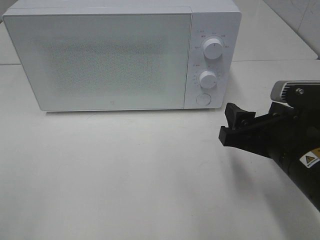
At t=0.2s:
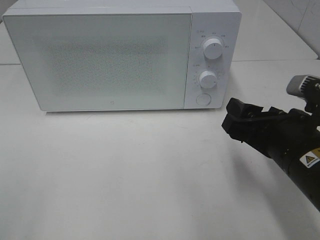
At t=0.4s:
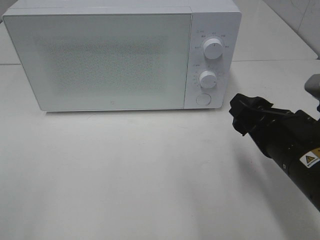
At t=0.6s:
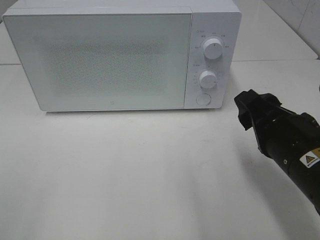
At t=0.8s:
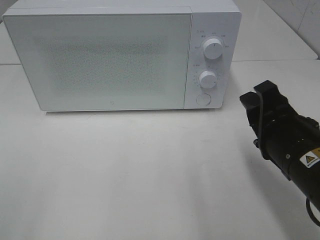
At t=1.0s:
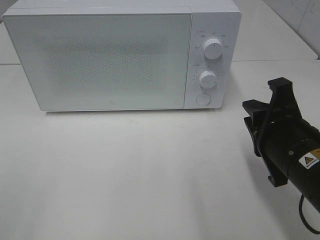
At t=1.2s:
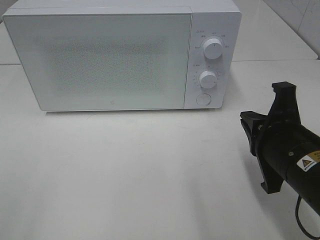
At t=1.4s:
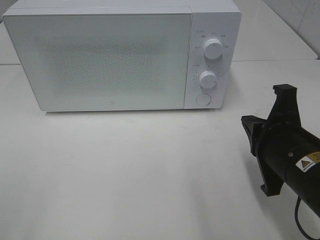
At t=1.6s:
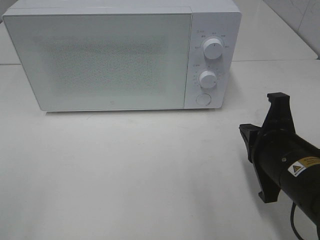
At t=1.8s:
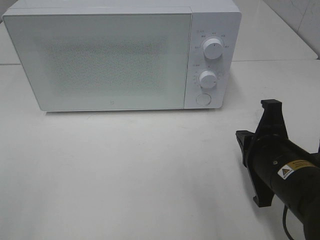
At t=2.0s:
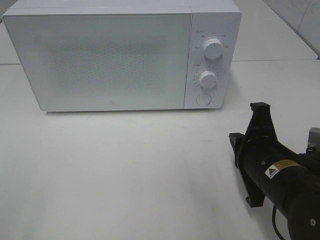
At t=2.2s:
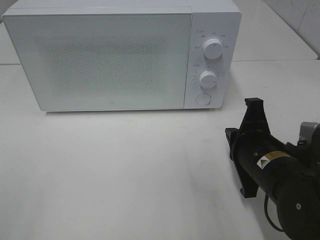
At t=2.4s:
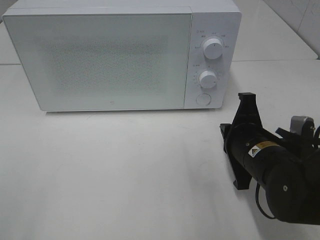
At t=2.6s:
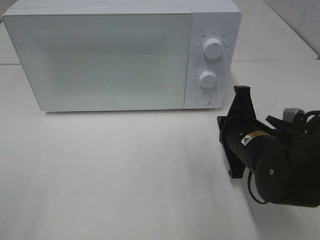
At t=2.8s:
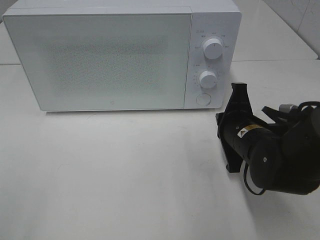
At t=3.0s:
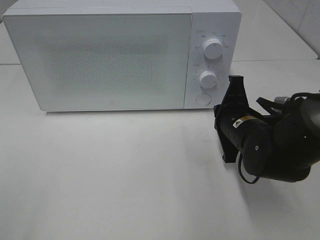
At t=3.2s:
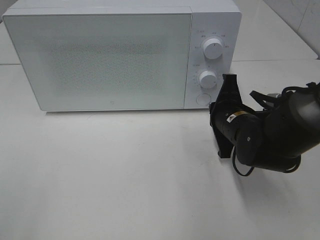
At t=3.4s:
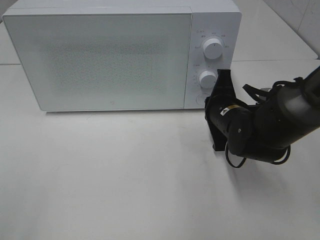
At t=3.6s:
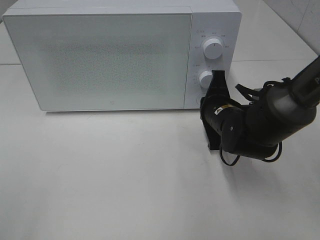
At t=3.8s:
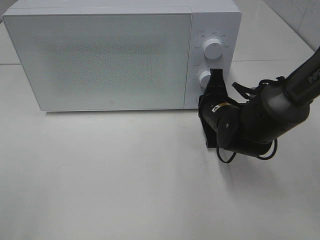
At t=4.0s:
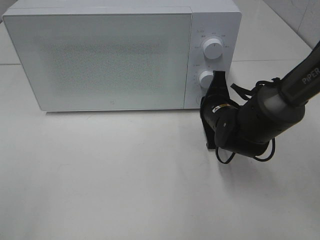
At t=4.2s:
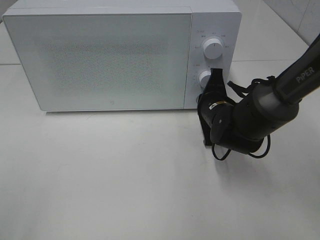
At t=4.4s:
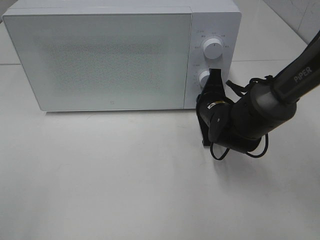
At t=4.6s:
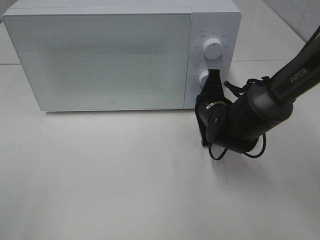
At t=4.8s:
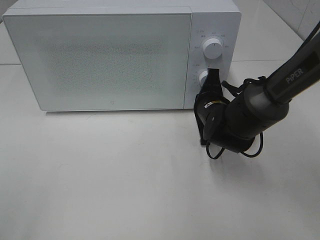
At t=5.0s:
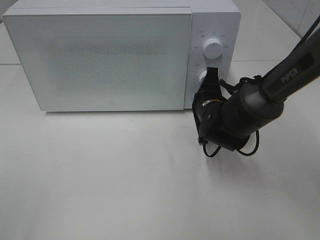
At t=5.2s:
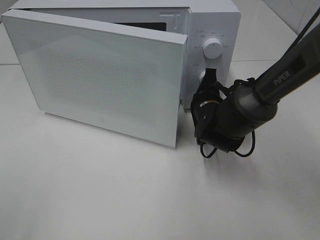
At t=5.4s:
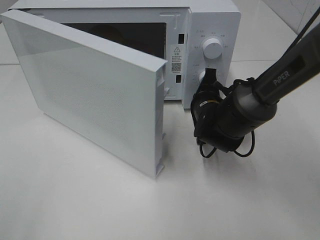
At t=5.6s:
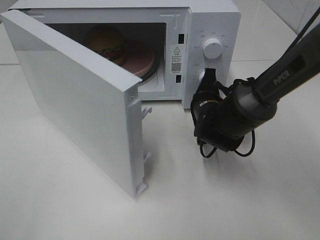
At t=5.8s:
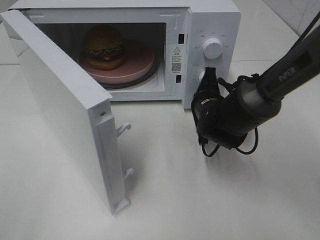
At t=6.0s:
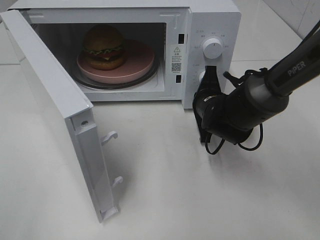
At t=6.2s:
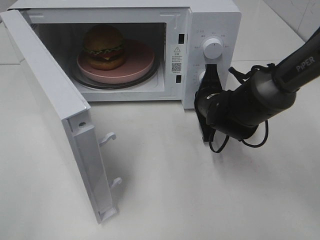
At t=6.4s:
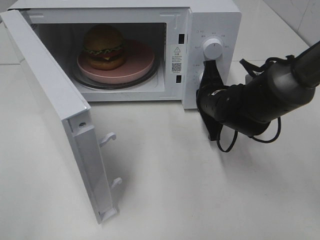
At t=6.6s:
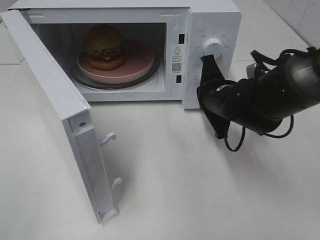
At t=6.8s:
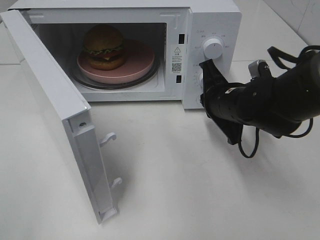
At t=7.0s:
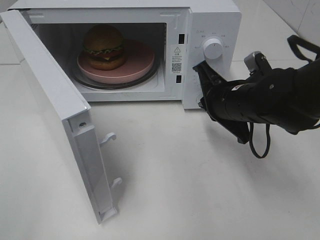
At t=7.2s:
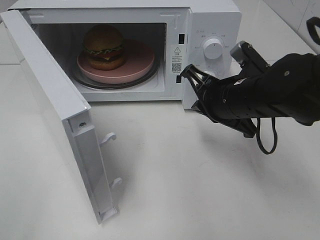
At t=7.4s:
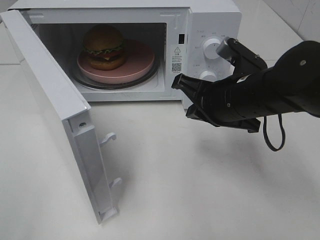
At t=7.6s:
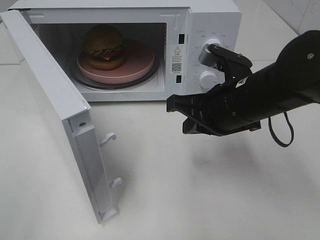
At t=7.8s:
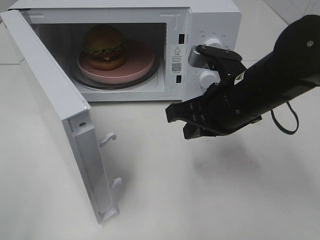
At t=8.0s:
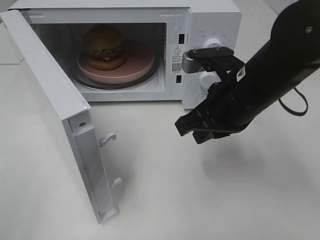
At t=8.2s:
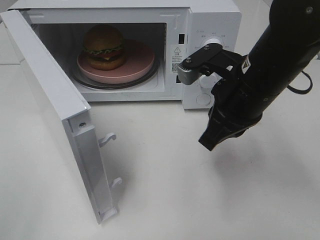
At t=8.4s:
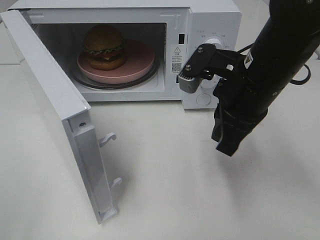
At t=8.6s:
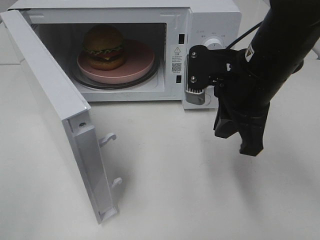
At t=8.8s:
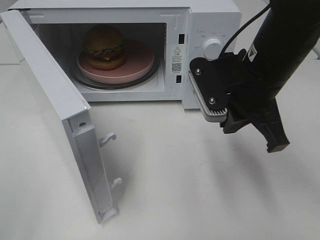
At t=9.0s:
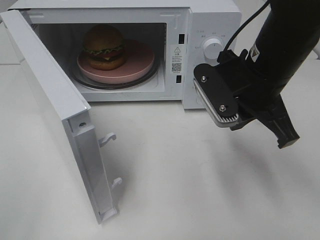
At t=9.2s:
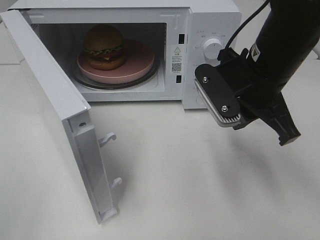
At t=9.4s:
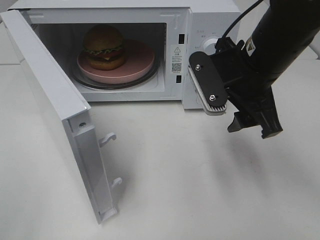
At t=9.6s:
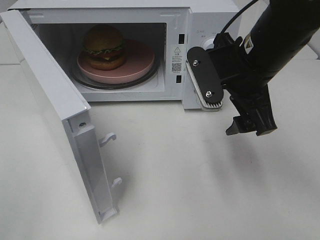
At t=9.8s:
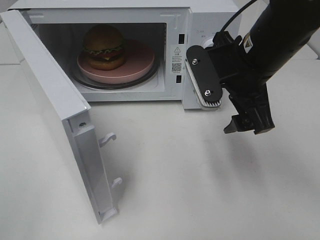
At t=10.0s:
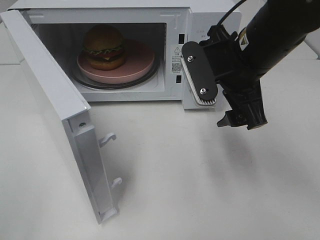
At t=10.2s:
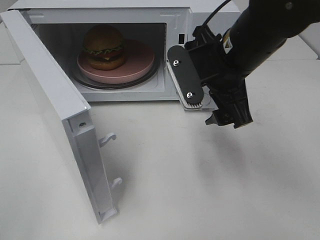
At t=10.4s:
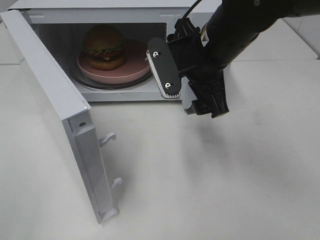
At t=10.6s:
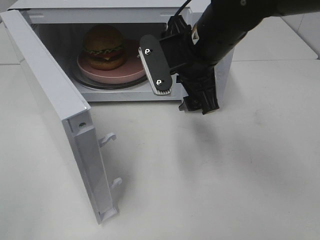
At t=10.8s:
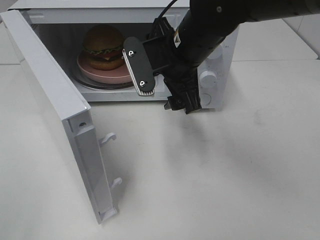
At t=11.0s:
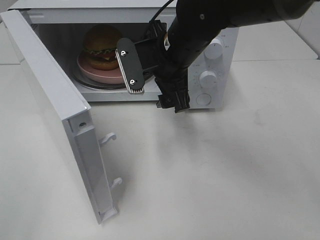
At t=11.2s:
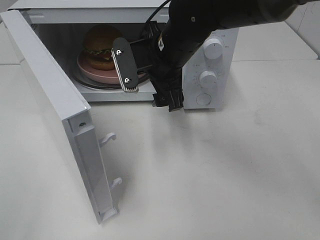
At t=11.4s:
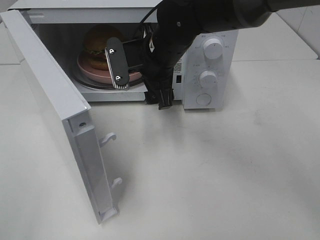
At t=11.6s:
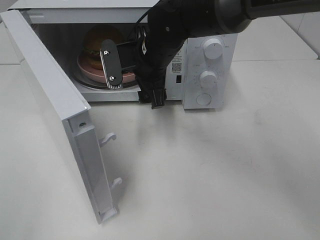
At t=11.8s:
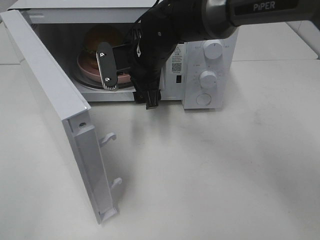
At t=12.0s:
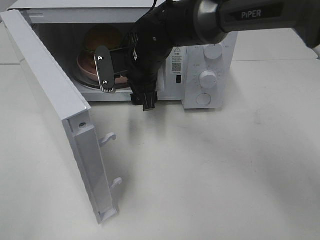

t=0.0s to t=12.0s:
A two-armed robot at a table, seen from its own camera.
Task of the whole recording: Heat the burger.
Step, t=0.0s to t=6.4s: Right hand: press the switch.
t=0.0s to t=1.6s: The right gripper closes.
t=1.6s to t=3.0s: The right gripper heads forward, covering some 10 cm.
t=3.0s to t=4.4s: The right gripper travels forward by about 5 cm.
t=6.0s to t=7.6s: The right gripper travels backward and upward by some 15 cm.
t=7.6s to t=9.0s: The right gripper shifts by about 5 cm.
t=9.0s to t=10.4s: The right gripper travels to the left by about 5 cm, and opens up.
t=10.4s to t=12.0s: The right gripper goes approximately 15 cm forward, to the left and downward.

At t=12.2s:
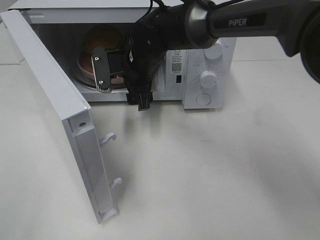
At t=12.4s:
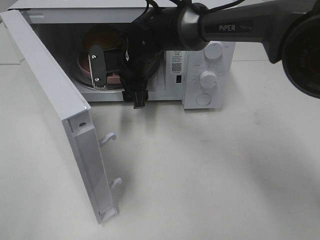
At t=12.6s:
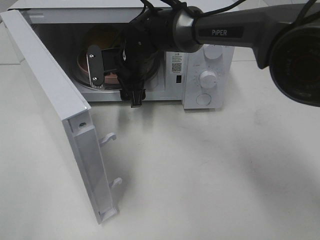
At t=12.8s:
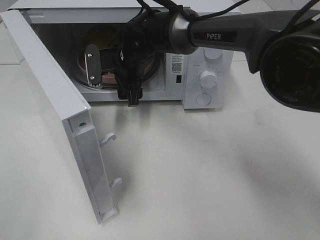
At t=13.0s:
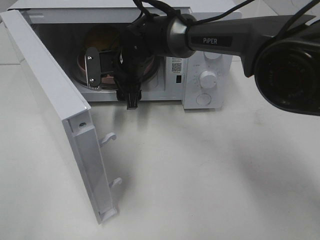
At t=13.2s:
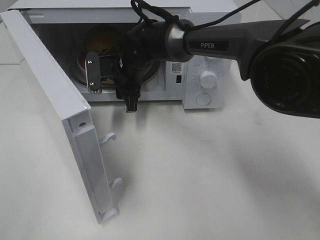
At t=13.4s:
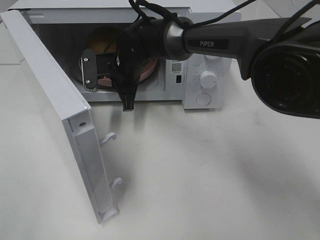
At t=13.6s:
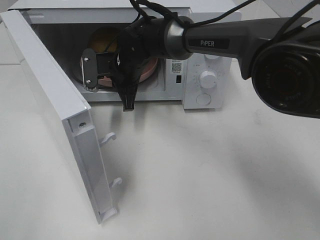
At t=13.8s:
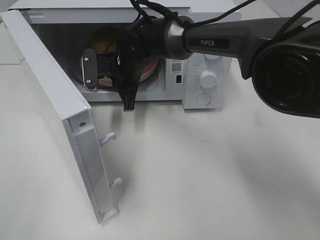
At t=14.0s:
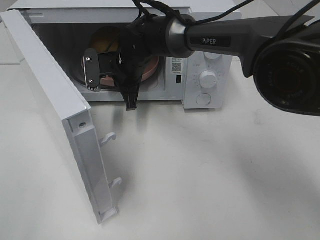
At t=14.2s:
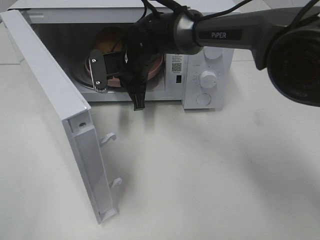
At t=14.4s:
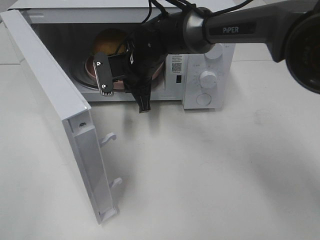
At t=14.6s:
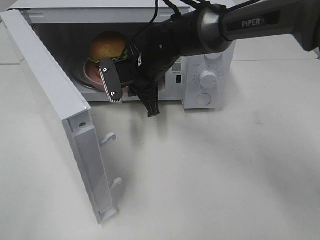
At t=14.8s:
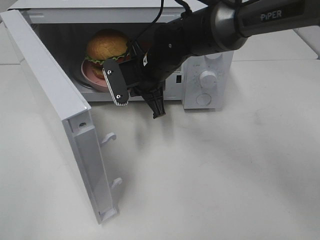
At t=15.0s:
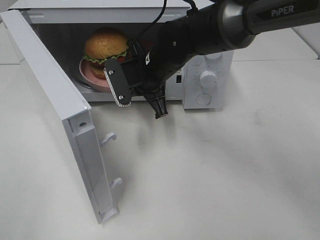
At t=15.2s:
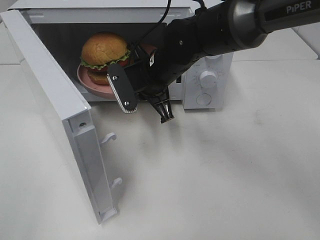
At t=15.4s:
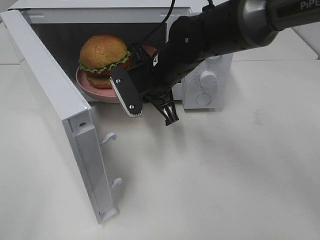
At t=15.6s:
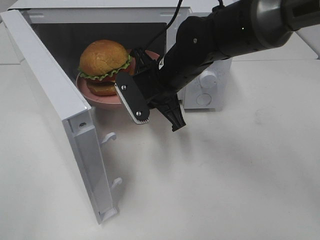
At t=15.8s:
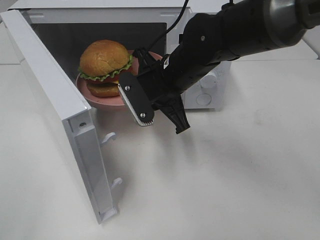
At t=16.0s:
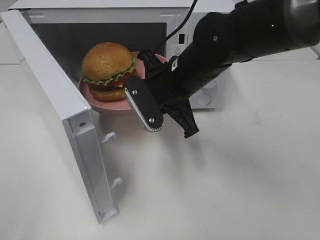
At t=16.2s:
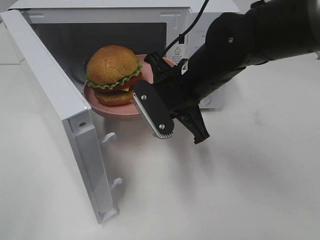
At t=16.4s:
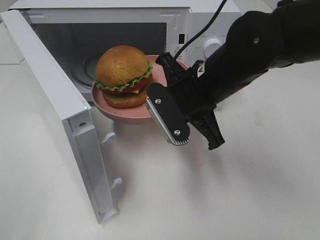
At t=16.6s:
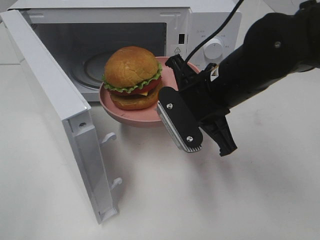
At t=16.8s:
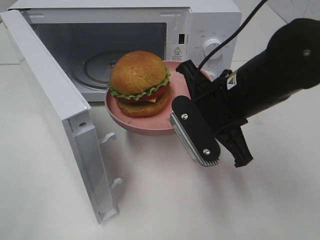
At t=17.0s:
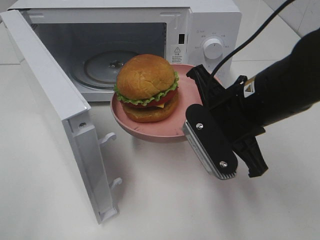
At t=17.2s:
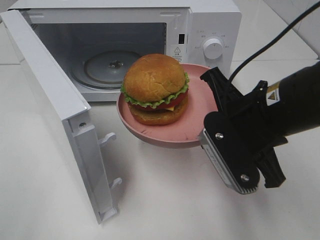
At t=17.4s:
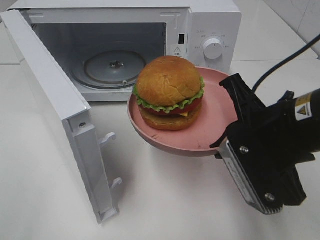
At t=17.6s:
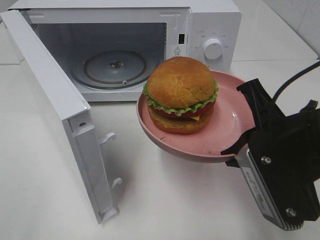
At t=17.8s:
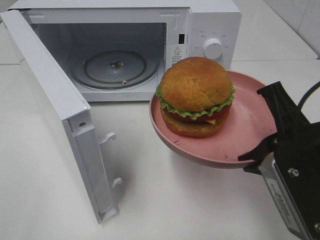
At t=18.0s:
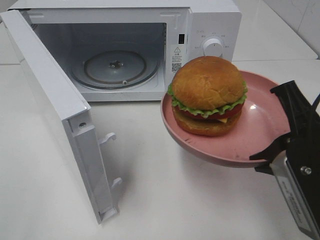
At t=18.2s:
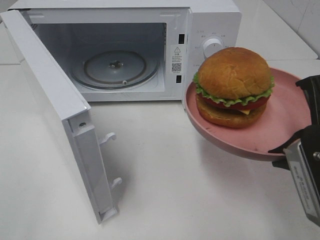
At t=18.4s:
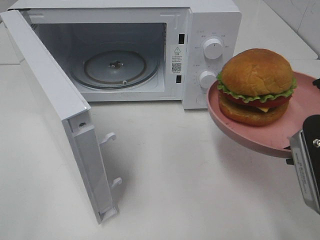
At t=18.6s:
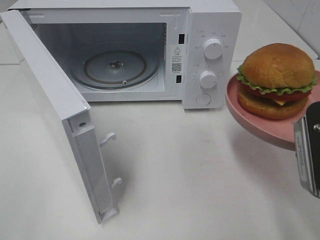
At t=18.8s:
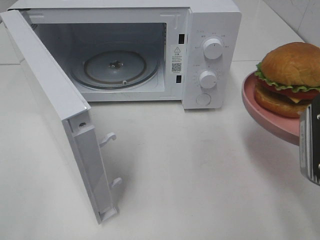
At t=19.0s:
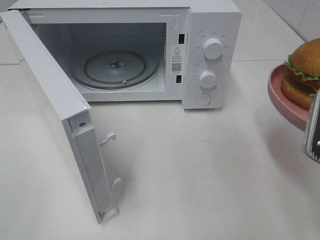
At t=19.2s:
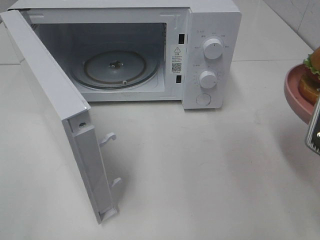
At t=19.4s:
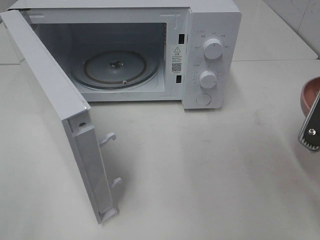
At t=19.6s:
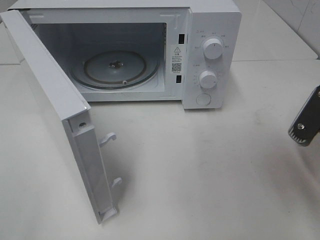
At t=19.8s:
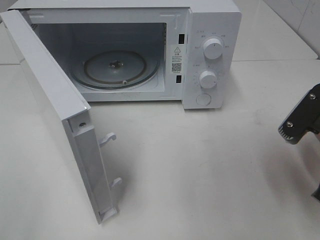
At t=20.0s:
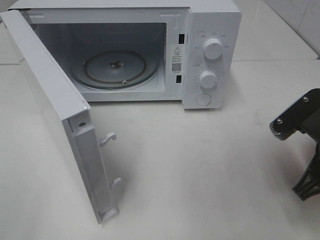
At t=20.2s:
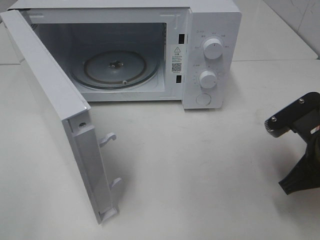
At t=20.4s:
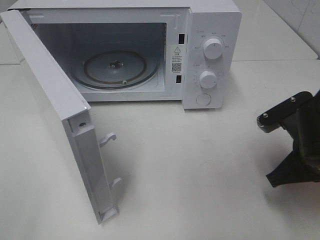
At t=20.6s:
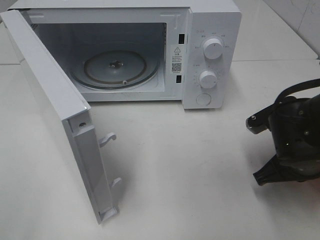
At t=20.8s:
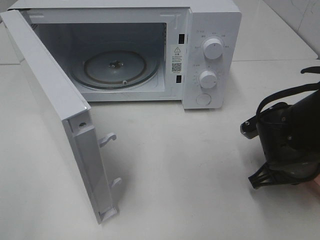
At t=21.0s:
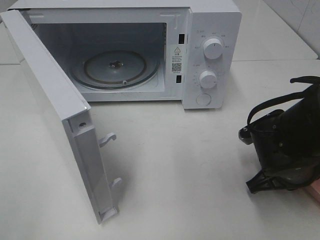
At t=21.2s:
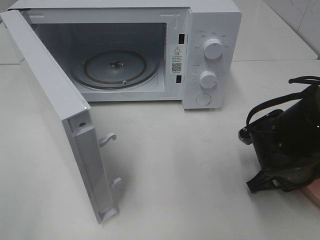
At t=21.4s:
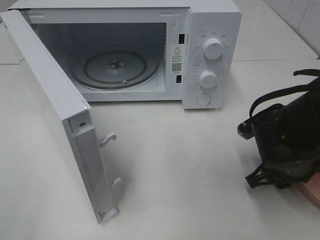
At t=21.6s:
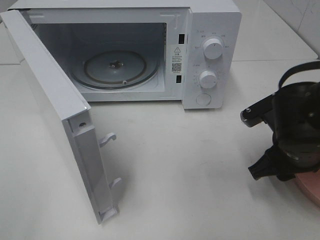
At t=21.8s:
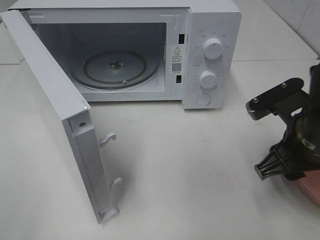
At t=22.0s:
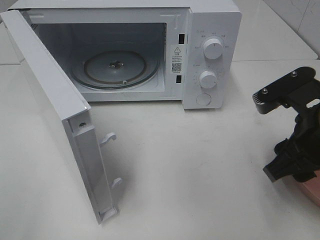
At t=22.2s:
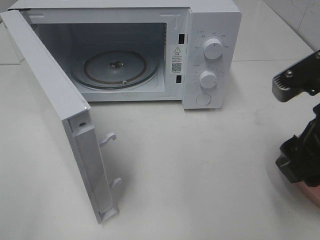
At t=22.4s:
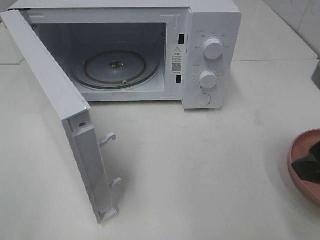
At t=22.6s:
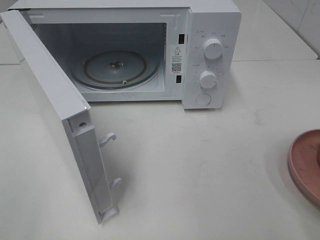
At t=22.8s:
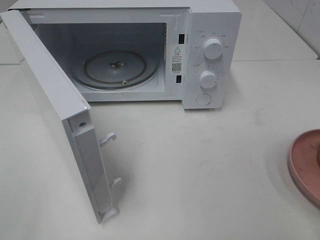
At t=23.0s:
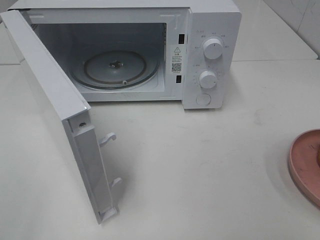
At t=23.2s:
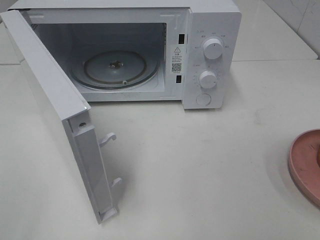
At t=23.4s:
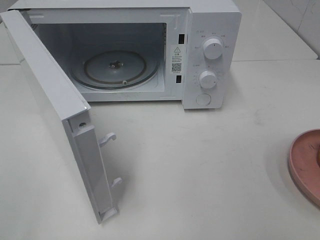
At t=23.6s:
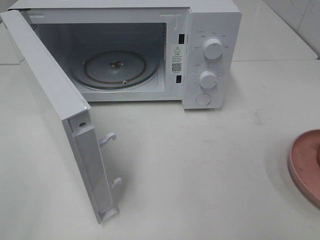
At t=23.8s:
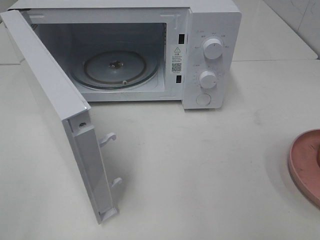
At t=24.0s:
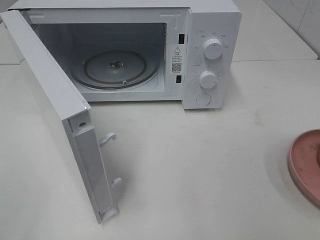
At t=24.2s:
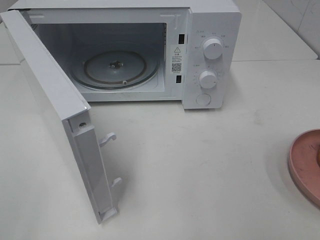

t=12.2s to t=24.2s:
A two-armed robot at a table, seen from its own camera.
Task of the whole recording: Heat the burger.
Step, t=13.8s to t=21.8s: Right hand: place the plate on the table.
t=12.2s to t=13.8s: The right gripper closes up.
t=13.8s to t=15.2s: The right gripper goes about 10 cm backward and to the right.
t=15.2s to t=16.6s: The right gripper heads backward and to the right, covering approximately 15 cm.
t=16.6s to t=18.2s: The right gripper moves backward and to the right, some 15 cm.
t=18.2s to t=19.8s: The right gripper shifts by about 5 cm.
t=19.8s to t=21.2s: The right gripper shifts approximately 10 cm downward and forward.
t=21.2s to t=22.6s: The right gripper shifts some 25 cm upward and backward, and opens its fingers.
